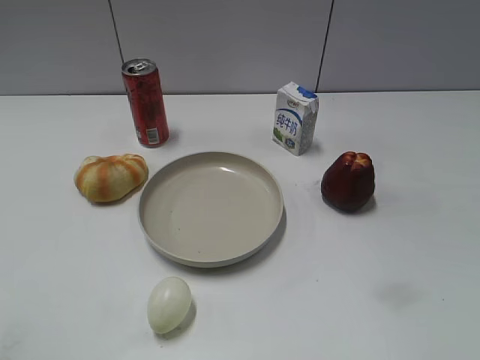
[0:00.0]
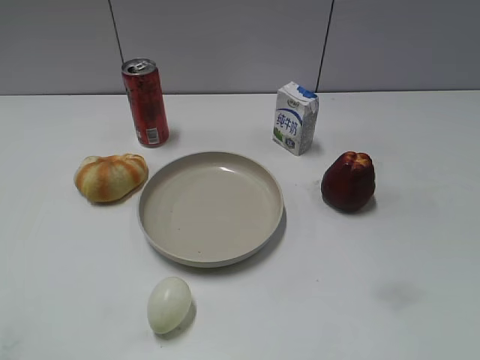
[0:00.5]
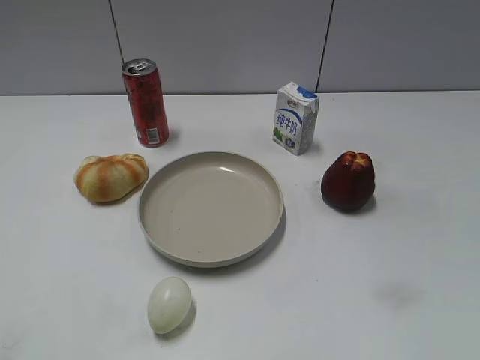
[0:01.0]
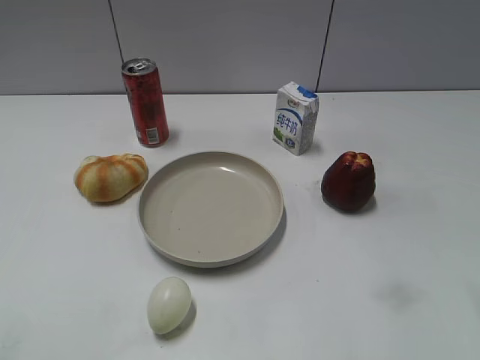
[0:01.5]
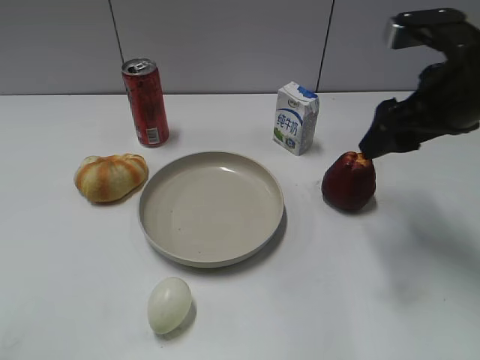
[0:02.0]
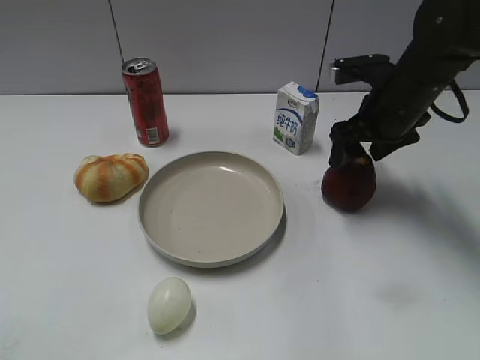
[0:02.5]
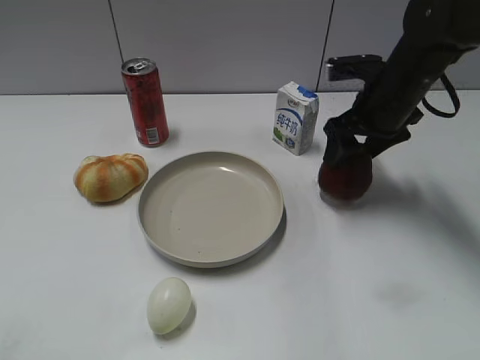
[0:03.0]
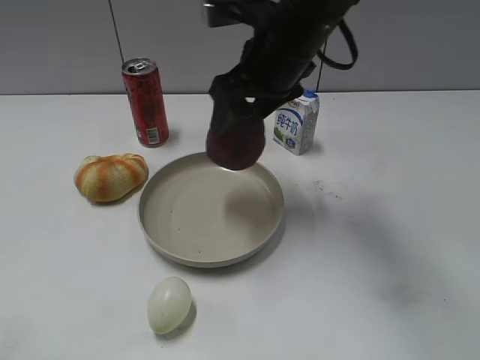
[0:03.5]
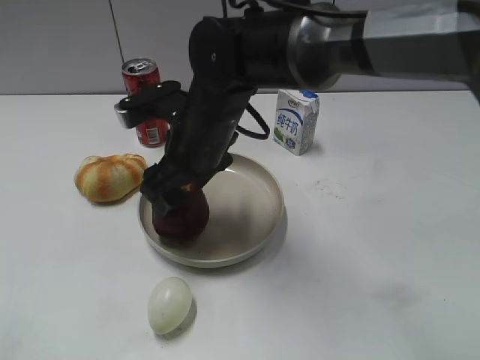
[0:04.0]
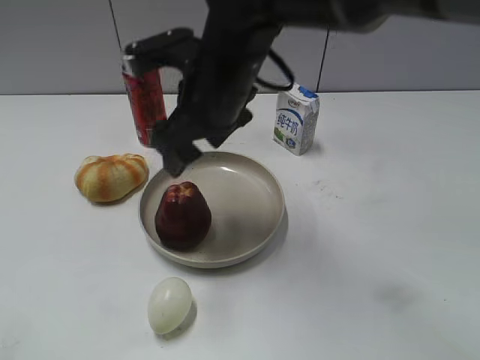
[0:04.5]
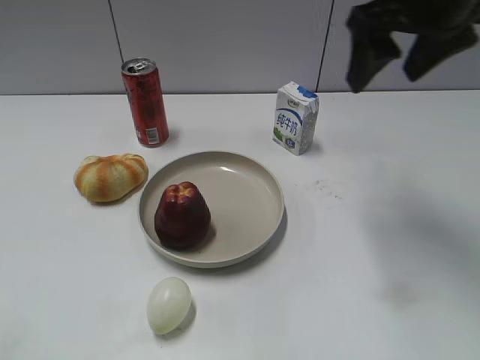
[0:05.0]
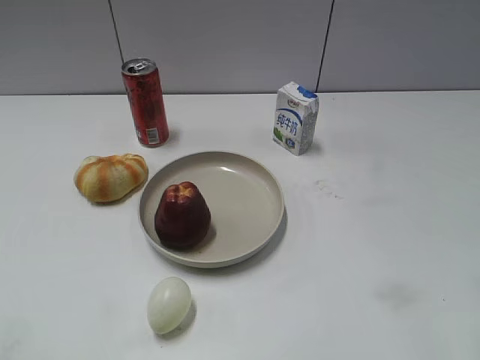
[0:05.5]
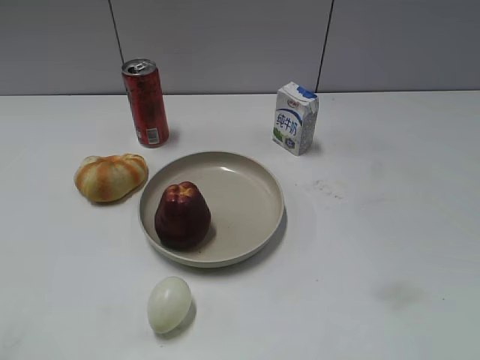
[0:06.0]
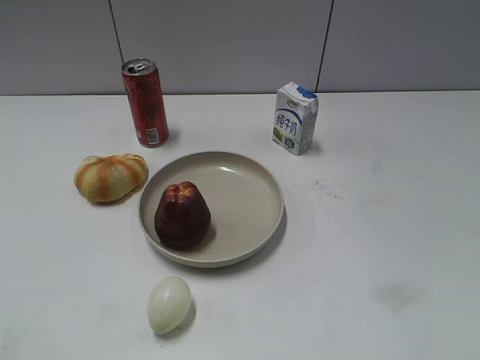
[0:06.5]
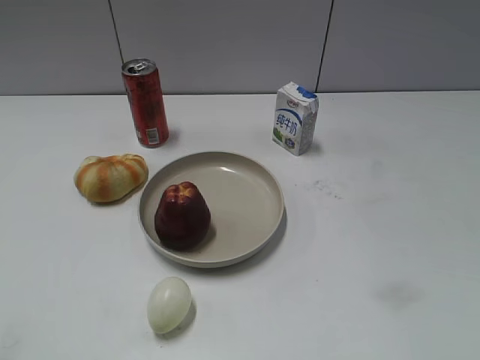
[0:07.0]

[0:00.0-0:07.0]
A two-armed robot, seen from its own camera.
Step, 0:01.0 to 0:02.5: Grasp the apple with right gripper.
Step, 0:03.0 to 0:04.5: Place the apple on the plate with right gripper.
0:02.0 to 0:03.5: The right gripper goes approximately 15 cm to the left, and closes its fingers.
0:03.5 to 0:05.0: The right gripper is displaced to the right and upward by about 15 cm, and opens.
0:05.0 to 0:07.0: The right gripper travels backward by some 30 cm, and closes its fingers.

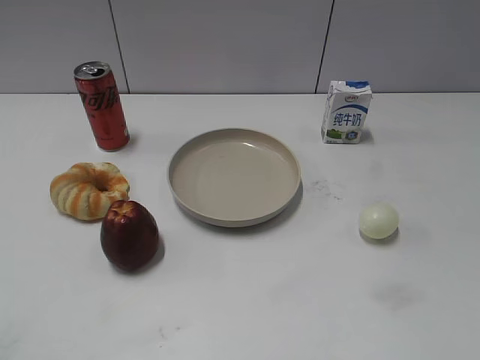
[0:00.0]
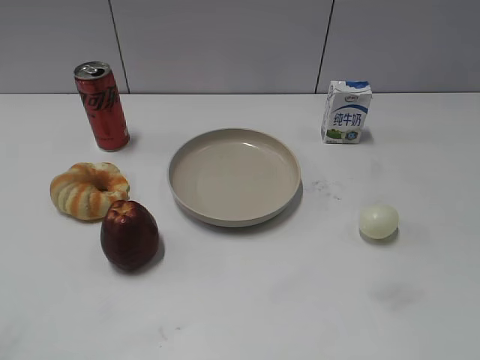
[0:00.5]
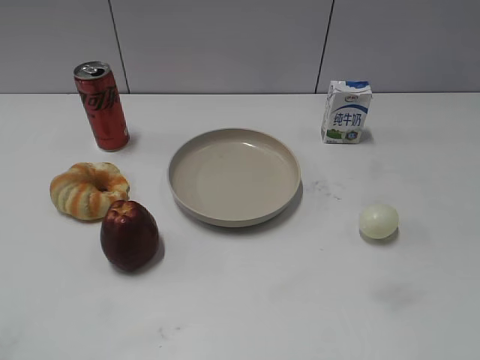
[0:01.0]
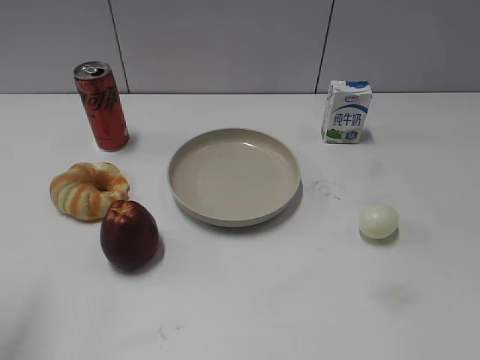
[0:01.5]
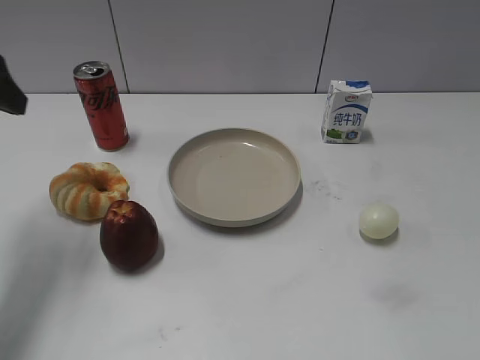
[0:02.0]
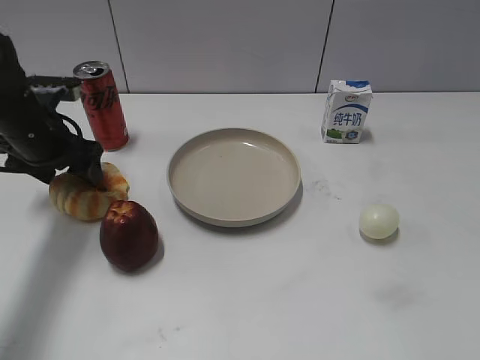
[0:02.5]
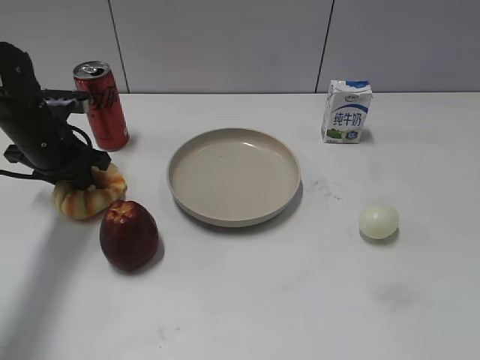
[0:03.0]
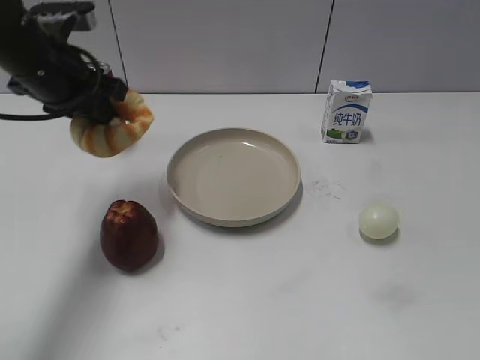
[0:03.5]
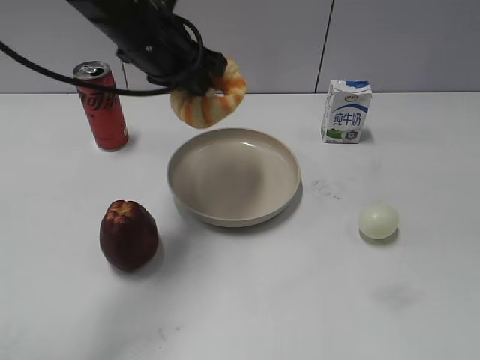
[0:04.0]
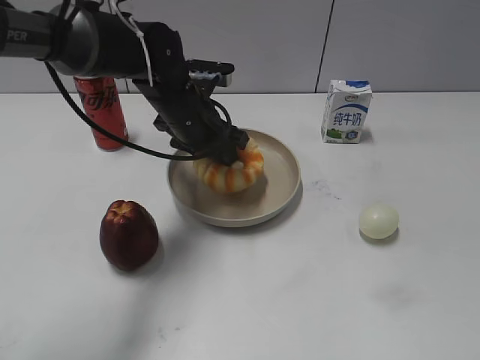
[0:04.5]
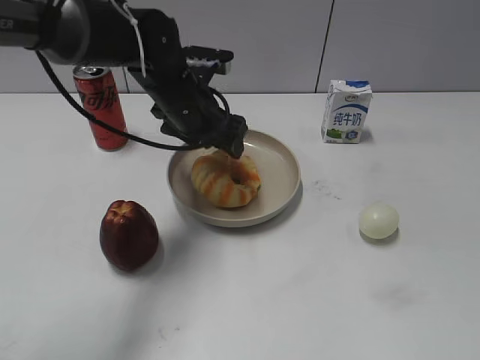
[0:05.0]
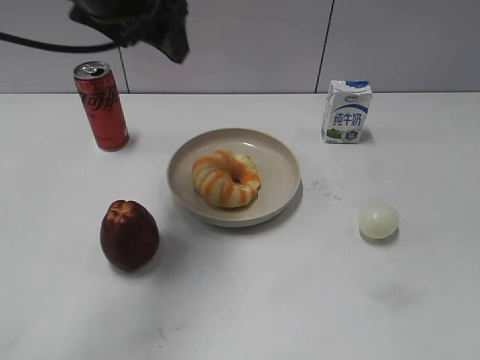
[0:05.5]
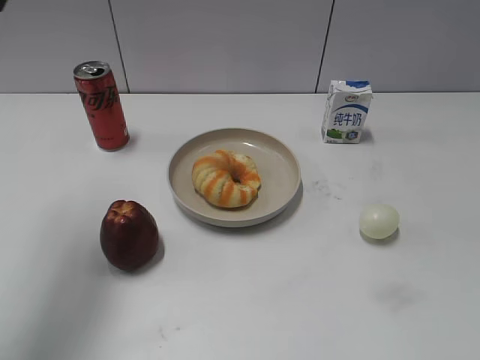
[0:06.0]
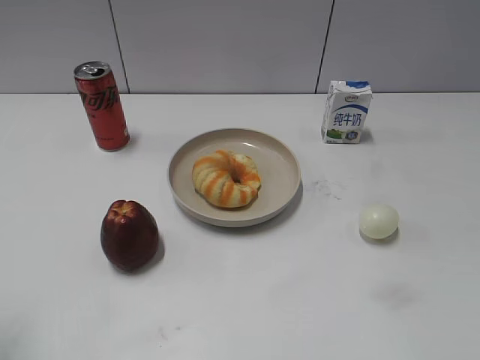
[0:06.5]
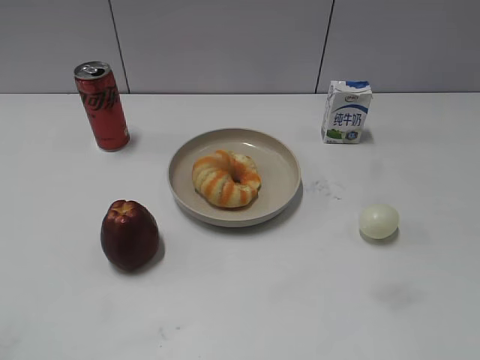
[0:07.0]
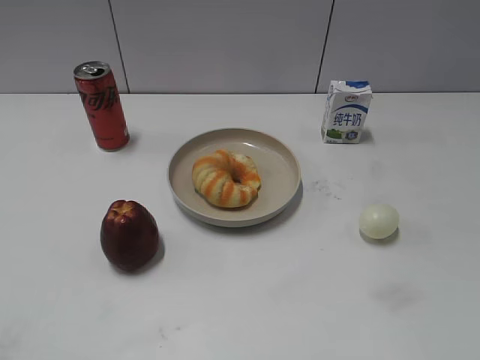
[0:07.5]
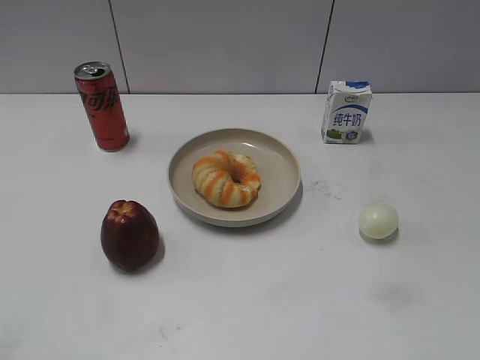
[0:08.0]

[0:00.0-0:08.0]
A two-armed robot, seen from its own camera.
Step, 0:01.0 to 0:02.5: Grasp the round bread with left gripper.
Step, 0:03.5 to 0:05.0: Place the round bread on the plate with left gripper.
0:02.0 to 0:04.0: The left gripper goes approximately 20 cm to the right, and closes.
0:04.0 to 0:06.0: The left gripper goes roughly 25 cm to the left, upward and backward, and opens its fingers.
0:06.0 to 0:08.0: The left gripper moves backward and downward, approximately 30 cm.
